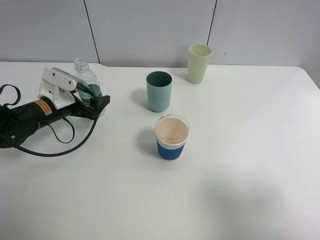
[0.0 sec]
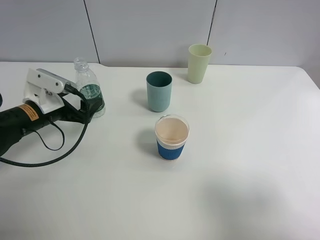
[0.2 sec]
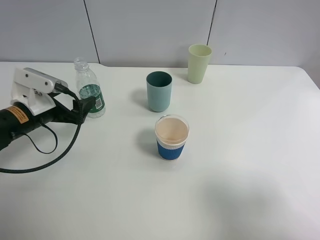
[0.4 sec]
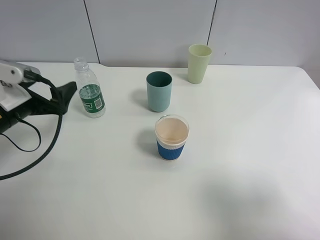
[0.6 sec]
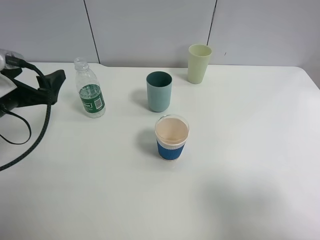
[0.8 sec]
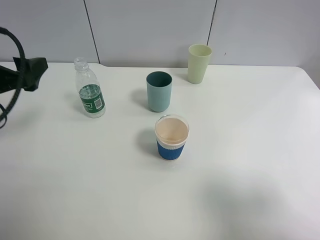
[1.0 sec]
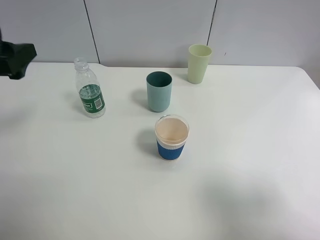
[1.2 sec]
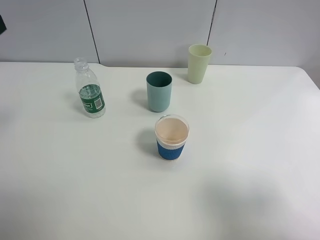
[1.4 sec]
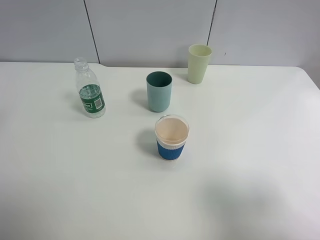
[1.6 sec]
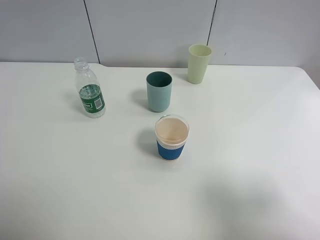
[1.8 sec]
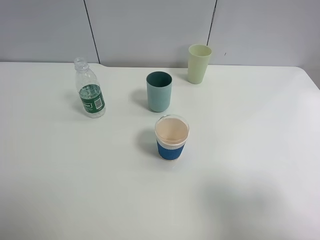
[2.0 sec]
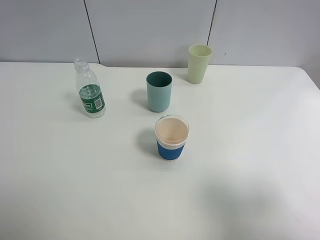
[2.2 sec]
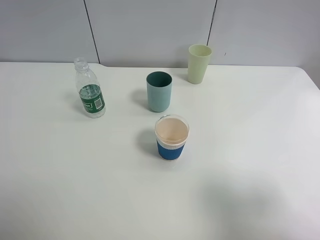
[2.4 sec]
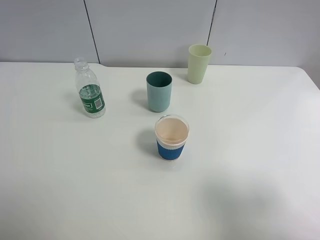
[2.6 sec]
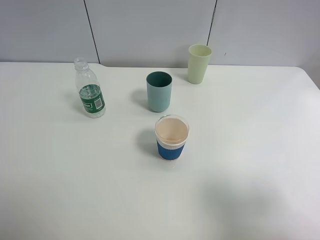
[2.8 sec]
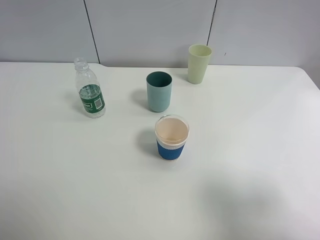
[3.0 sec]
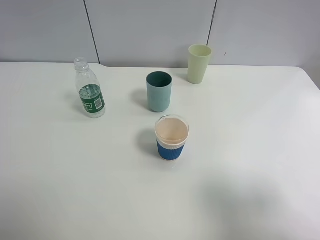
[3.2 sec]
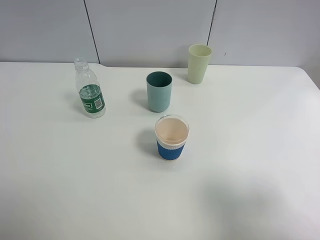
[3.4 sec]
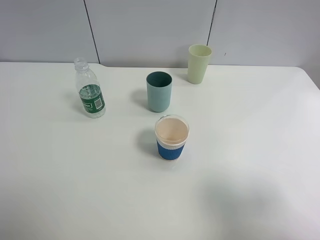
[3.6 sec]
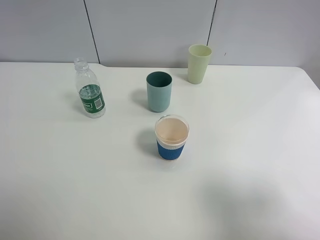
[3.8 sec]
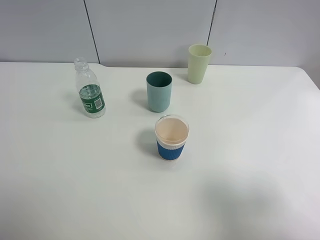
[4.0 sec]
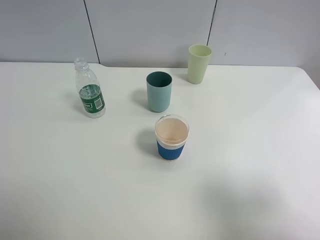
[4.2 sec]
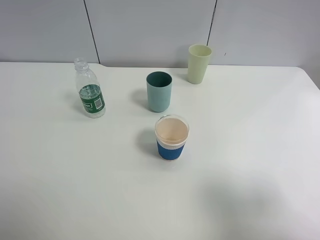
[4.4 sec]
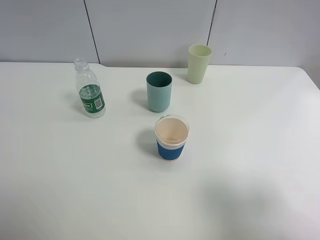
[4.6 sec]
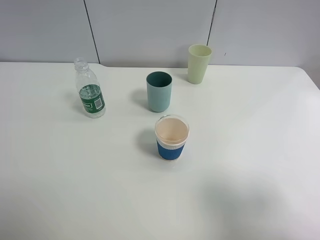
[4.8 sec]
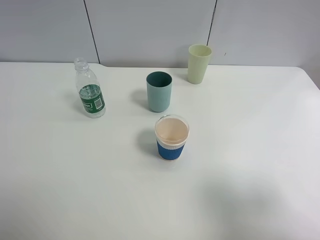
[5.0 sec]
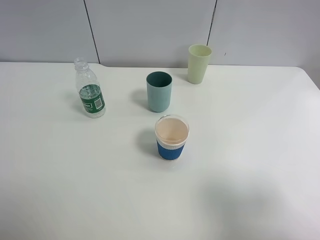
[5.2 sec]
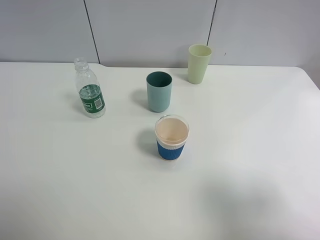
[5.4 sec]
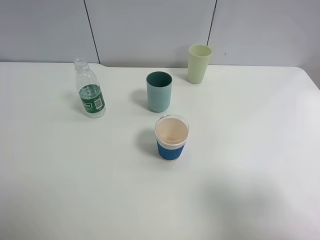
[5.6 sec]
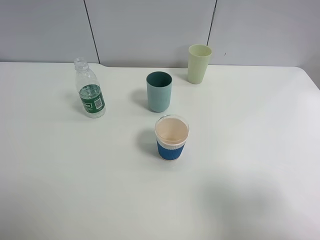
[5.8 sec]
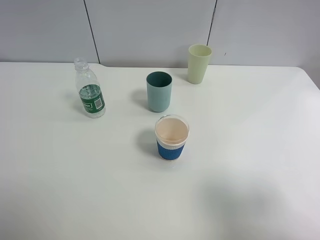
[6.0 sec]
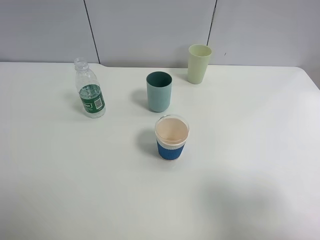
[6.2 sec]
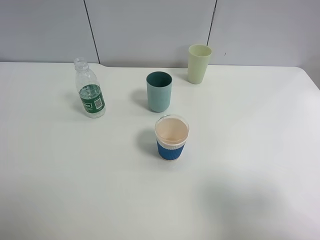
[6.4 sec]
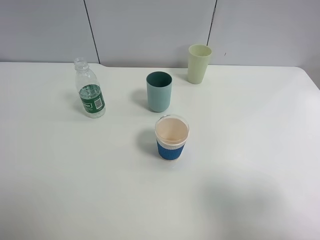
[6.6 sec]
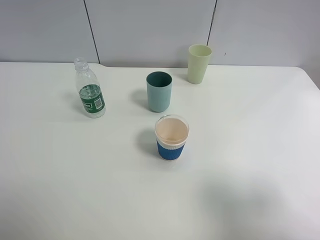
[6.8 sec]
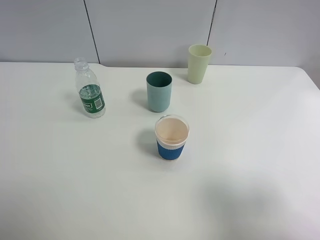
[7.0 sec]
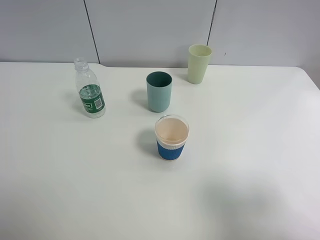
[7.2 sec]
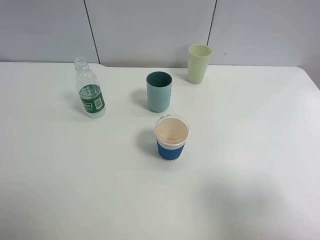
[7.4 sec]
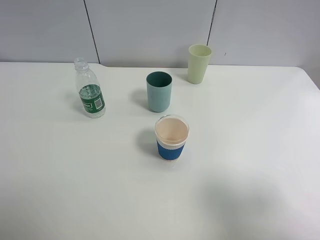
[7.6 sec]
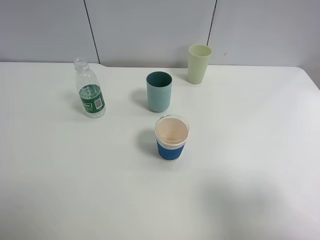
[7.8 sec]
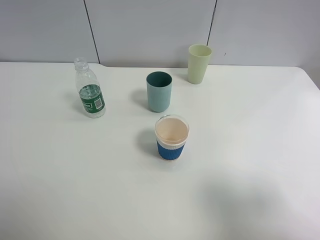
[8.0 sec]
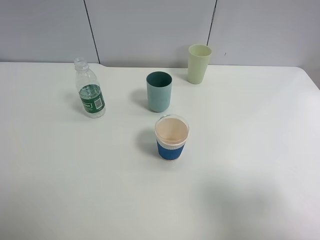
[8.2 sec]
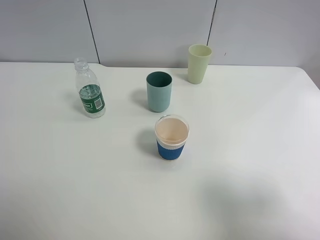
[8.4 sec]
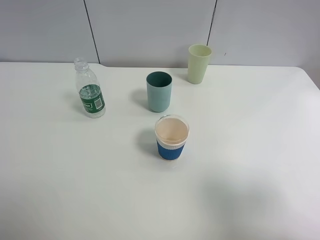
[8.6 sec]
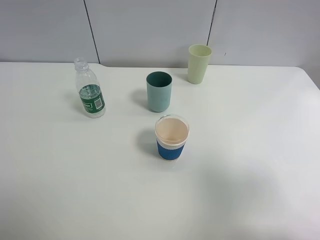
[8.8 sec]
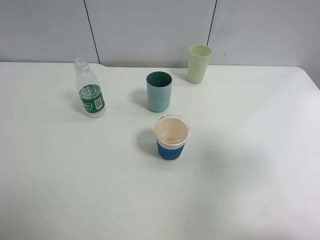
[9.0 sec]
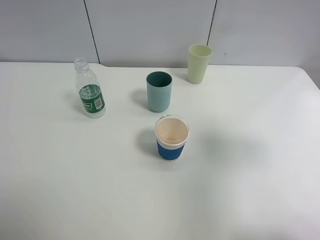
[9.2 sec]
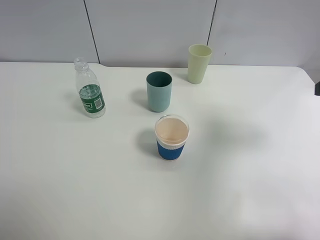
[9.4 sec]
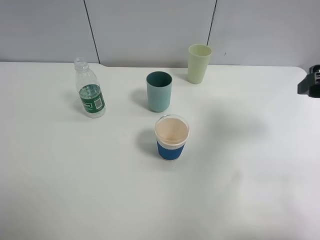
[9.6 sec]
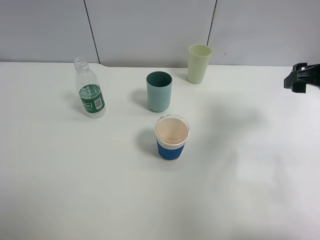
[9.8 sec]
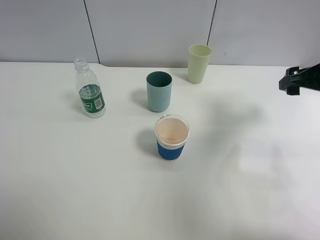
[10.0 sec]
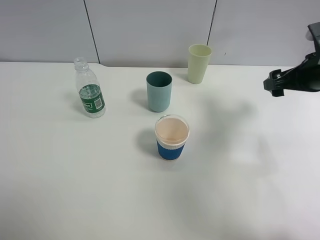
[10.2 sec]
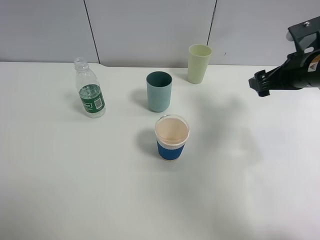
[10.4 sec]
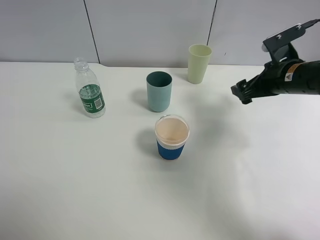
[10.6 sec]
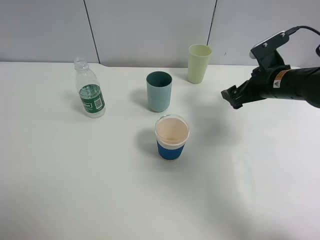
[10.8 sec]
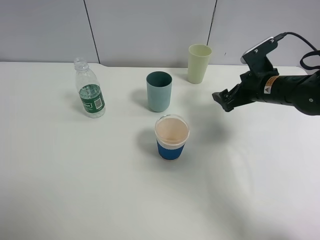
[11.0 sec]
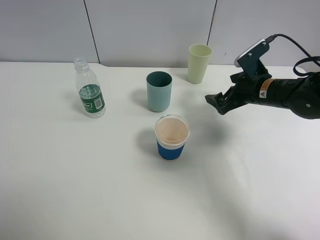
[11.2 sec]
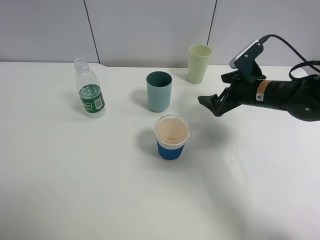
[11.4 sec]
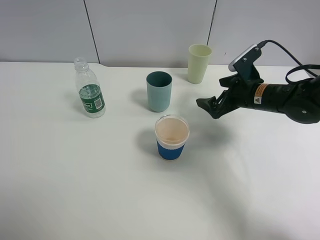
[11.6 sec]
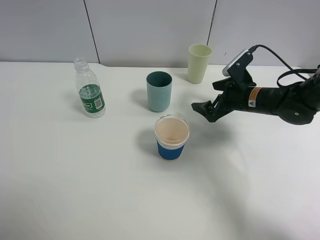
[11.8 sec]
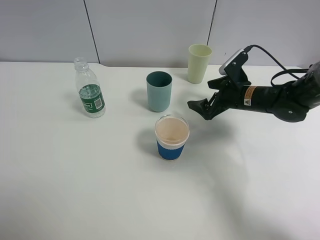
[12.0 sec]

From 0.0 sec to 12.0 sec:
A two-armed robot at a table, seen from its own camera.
Task of the whole recording: use a clamp to hold the bottle of the drink, pour the beverage into a random cup, then clamp the cup containing the drink and pour the drink into another random cup.
From 0.0 sec to 1.6 sec: The left gripper moves upward and backward, approximately 30 cm.
From 4.4 sec to 6.0 sec: Neither gripper changes place.
From 7.6 sec to 9.0 sec: The right gripper shifts about 10 cm forward.
From 9.0 sec to 10.4 sec: The right gripper heads forward and downward, covering about 25 cm.
From 10.4 sec to 12.0 sec: The right gripper is displaced downward and to the left by some 15 cm.

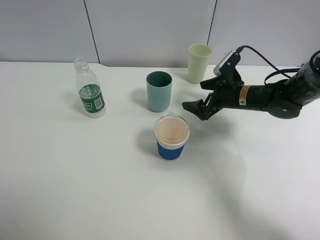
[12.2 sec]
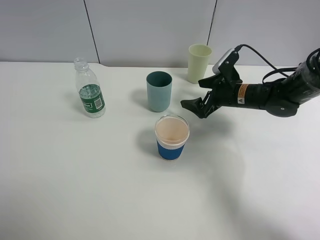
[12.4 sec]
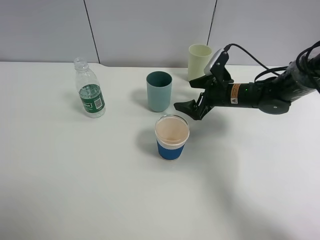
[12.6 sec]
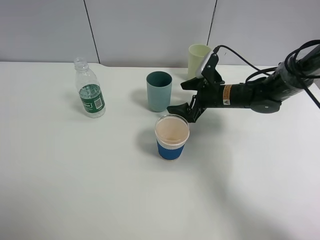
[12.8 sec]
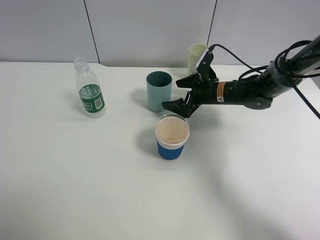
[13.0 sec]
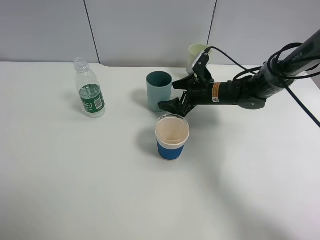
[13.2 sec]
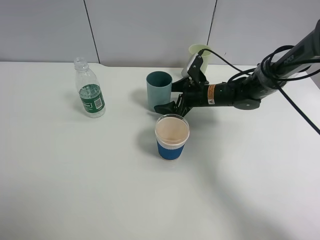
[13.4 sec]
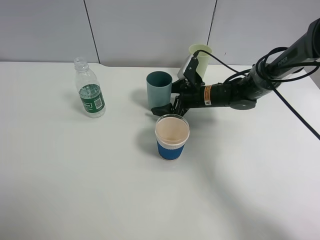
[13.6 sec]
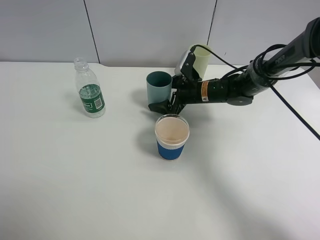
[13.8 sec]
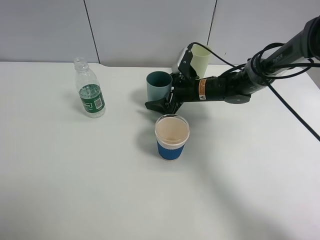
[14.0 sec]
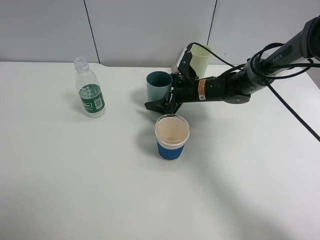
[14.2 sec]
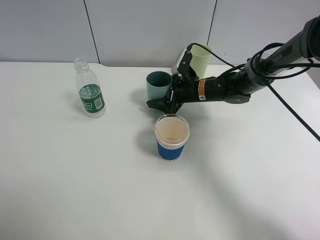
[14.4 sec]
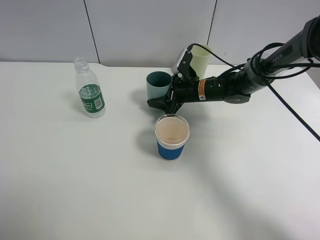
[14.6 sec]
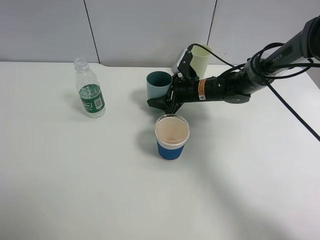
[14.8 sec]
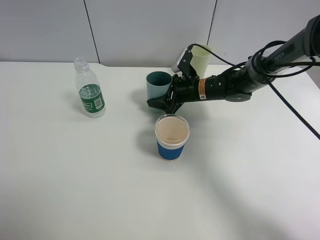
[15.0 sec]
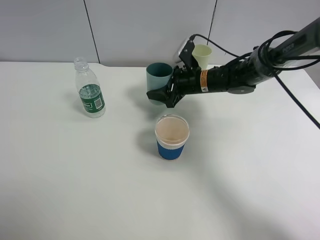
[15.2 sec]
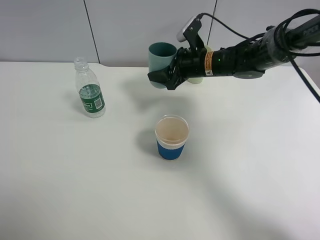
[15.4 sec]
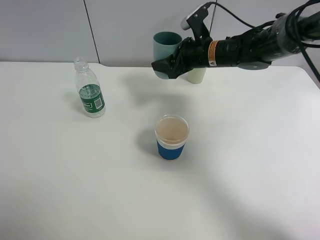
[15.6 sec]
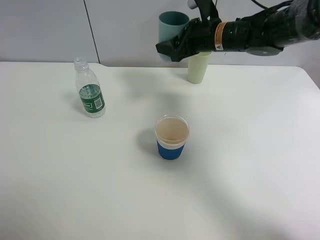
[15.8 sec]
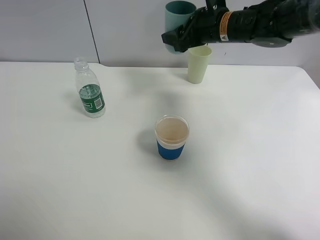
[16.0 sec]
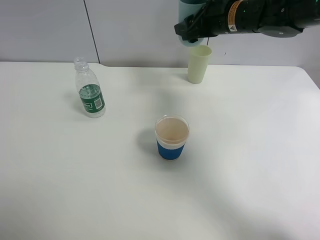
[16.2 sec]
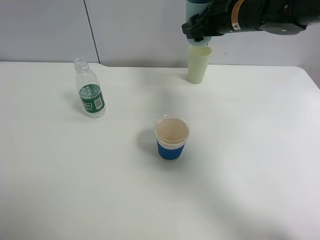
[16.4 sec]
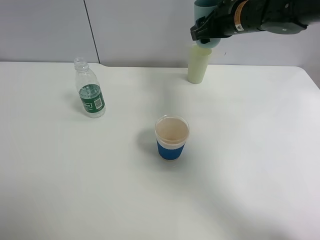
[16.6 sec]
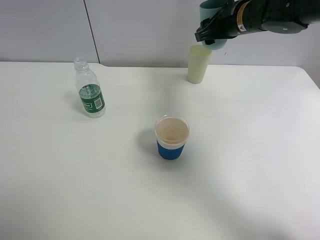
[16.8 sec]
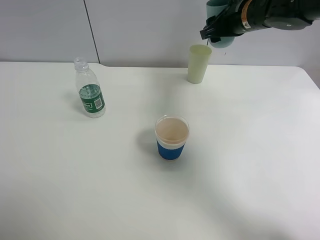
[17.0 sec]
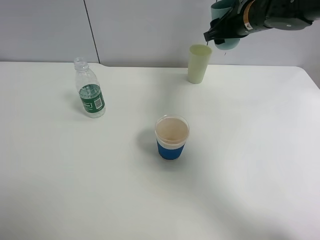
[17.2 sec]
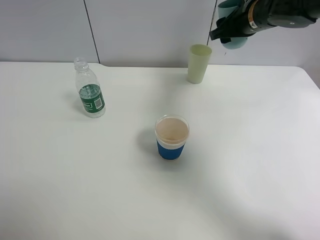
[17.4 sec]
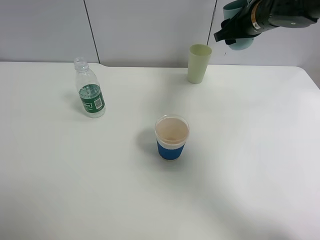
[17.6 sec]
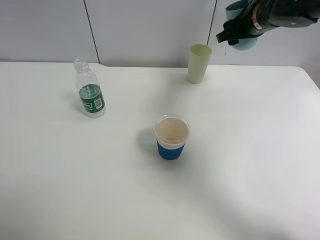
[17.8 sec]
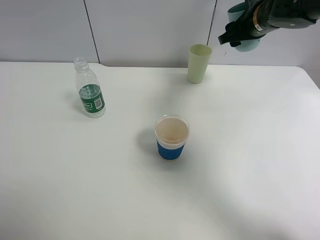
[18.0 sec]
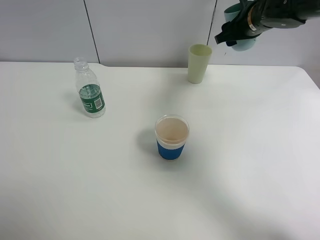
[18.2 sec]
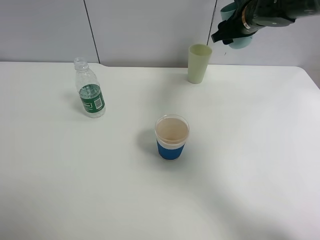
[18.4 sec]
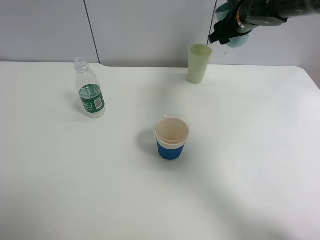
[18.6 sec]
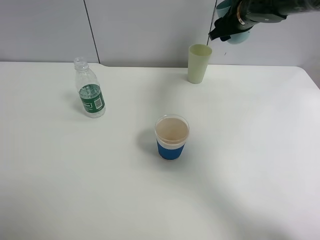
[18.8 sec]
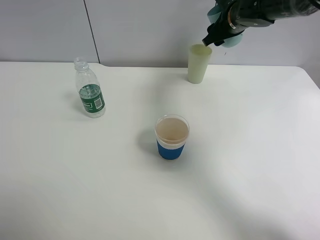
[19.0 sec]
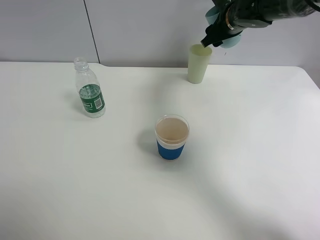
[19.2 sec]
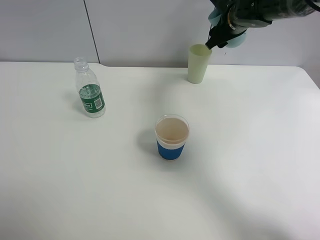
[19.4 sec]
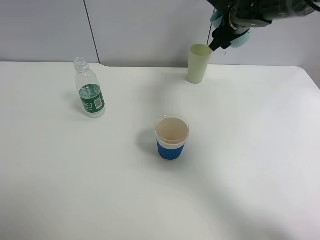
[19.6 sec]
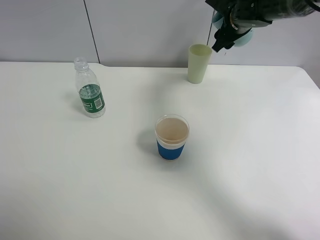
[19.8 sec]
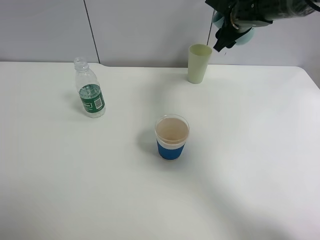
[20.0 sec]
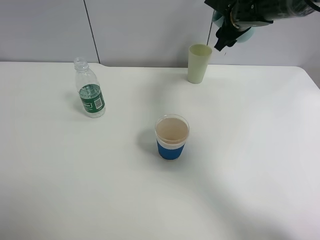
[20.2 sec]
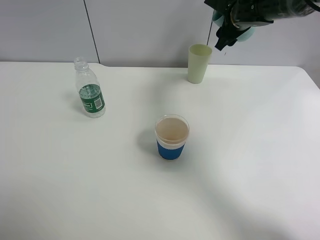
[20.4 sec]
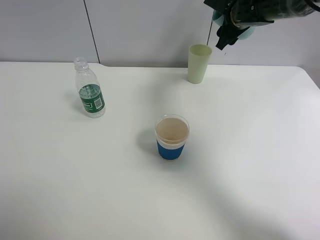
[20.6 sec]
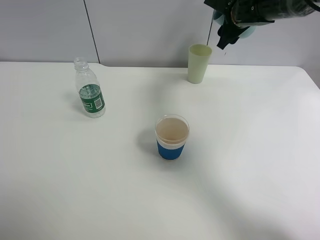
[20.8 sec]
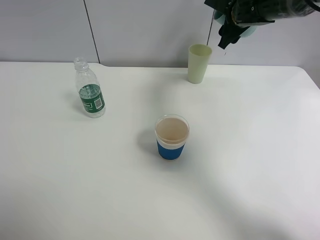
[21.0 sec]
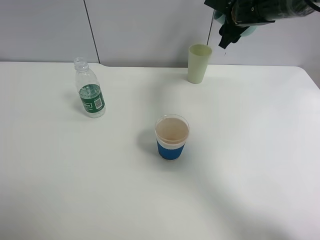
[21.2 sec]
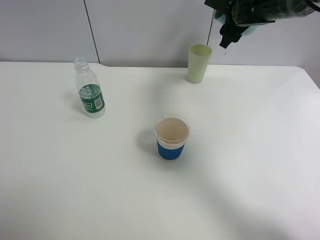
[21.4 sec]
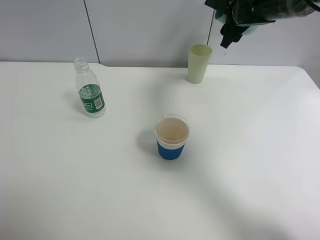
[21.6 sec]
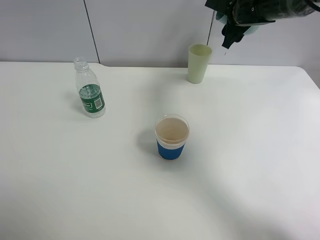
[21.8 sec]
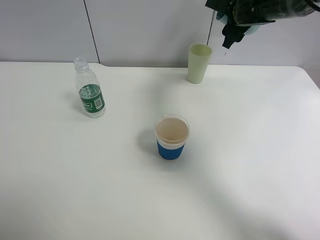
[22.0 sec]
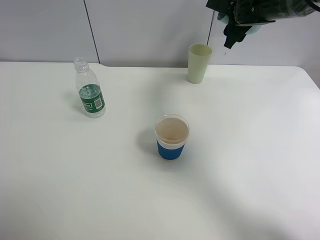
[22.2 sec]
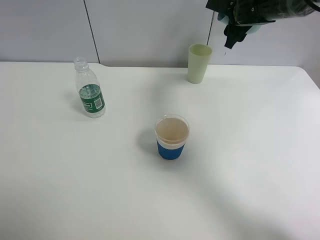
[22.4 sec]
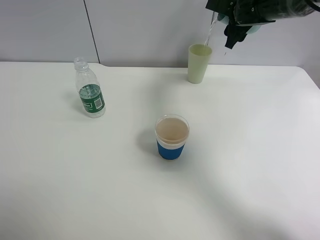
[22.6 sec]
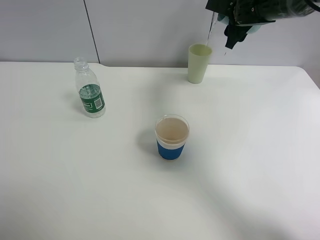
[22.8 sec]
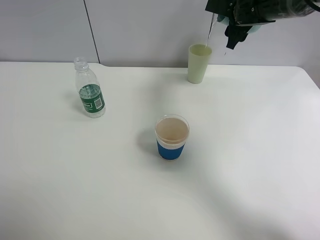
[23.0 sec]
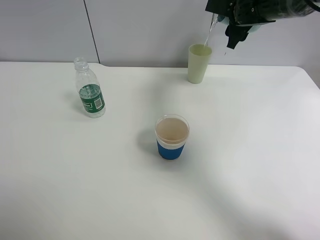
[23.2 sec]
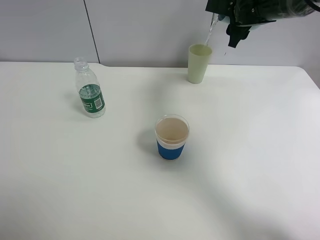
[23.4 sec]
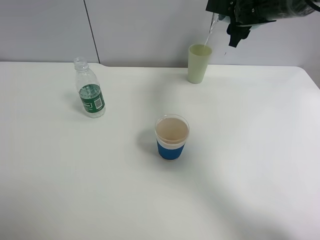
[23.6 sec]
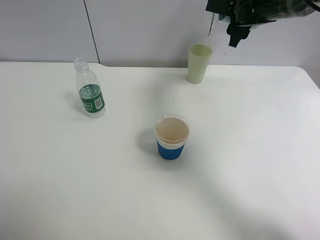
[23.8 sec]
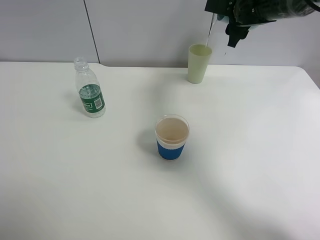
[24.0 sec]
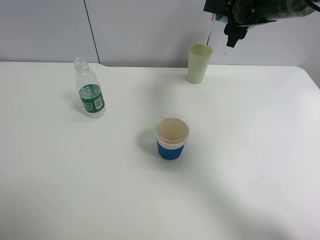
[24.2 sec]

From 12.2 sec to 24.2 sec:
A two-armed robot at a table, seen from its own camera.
Task of the whole recording: use a clamp to hold the bottle of the drink, pour the beverage into a random cup, then clamp the cup containing the drink and pour the drink into another random cup.
Step, from 12.2 sec to 15.2 sec: Pick up the blue plastic cup with right gripper.
From 12.2 sec to 13.8 sec: The right gripper travels to the left by roughly 10 cm.
From 13.8 sec to 15.2 sec: The right gripper closes its fingers.
From 15.2 sec to 16.6 sec: The right gripper shifts about 15 cm upward.
From 19.8 sec to 21.2 sec: There are only small adjustments of the grippers.
